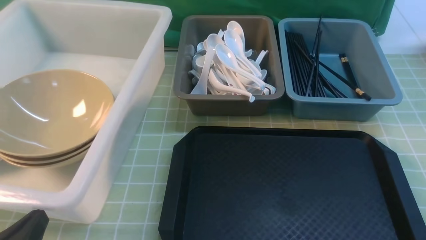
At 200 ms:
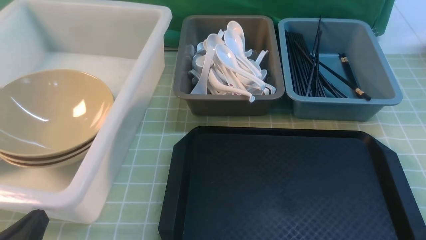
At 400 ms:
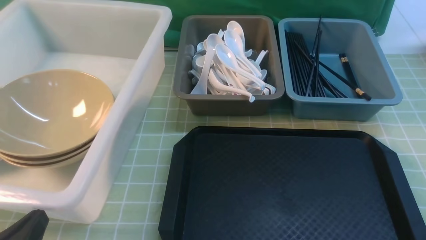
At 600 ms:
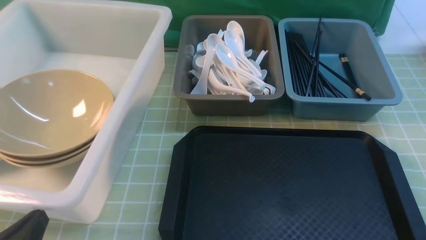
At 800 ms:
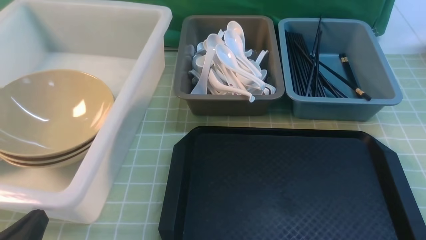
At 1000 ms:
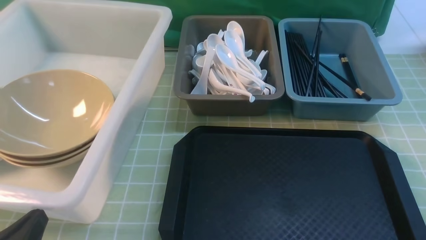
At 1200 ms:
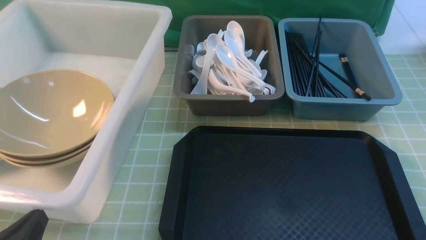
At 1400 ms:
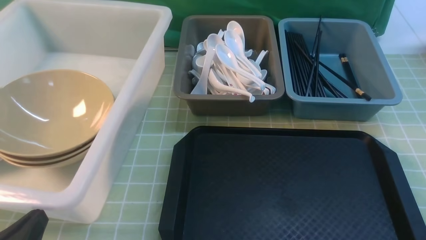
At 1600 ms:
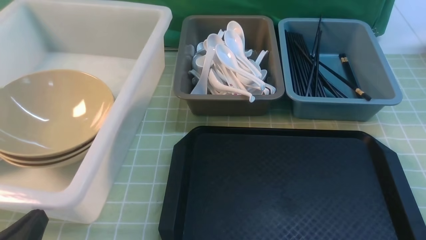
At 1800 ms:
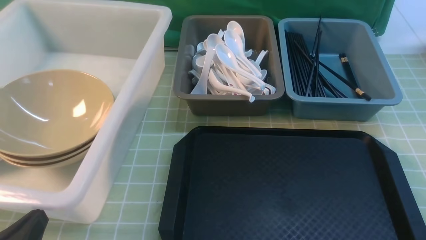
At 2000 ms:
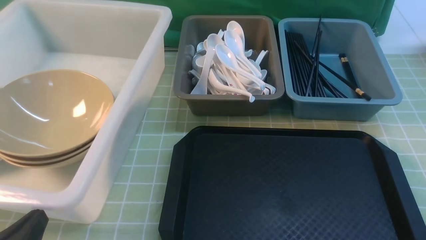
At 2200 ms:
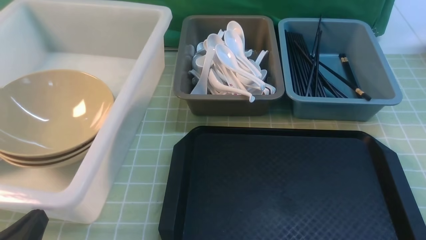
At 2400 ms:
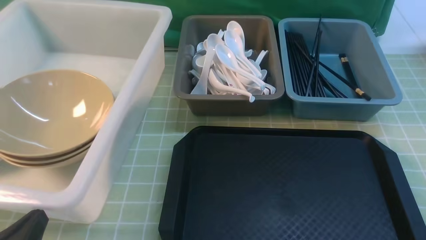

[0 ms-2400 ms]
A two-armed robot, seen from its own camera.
Task of the whole recording: on green table put chopsticks spoon bowls plates into blue grey white boxes.
0 ms to 2400 ms: Both grippers stay put.
